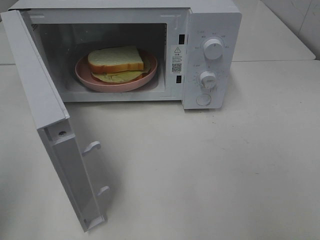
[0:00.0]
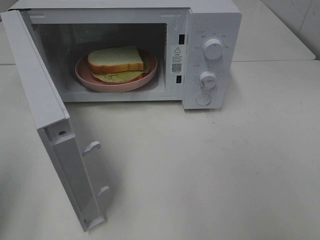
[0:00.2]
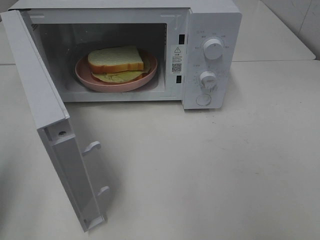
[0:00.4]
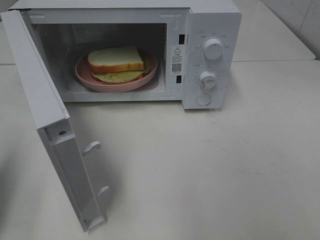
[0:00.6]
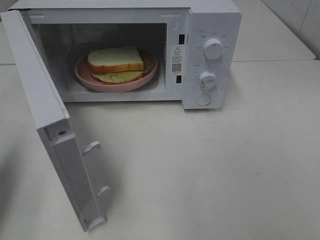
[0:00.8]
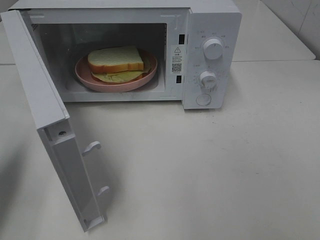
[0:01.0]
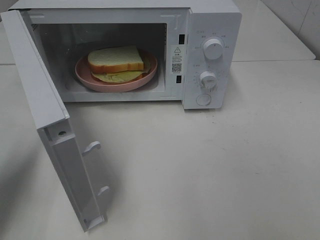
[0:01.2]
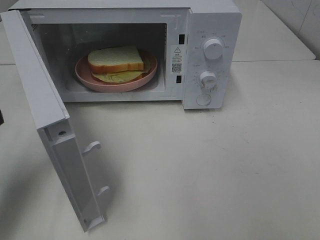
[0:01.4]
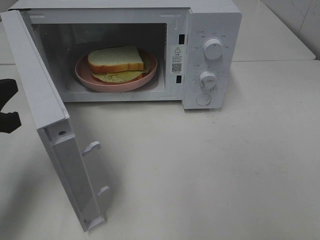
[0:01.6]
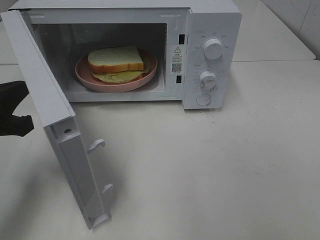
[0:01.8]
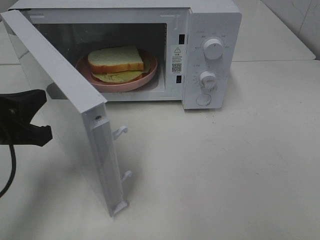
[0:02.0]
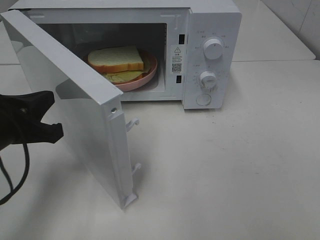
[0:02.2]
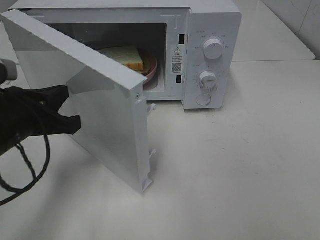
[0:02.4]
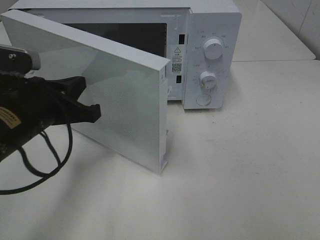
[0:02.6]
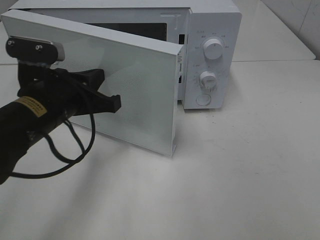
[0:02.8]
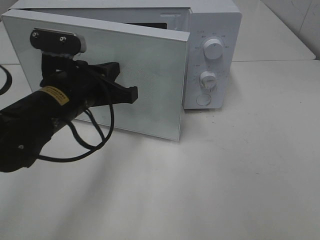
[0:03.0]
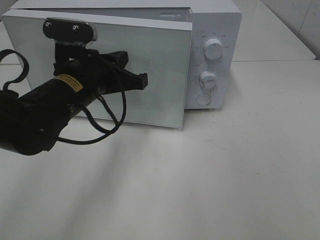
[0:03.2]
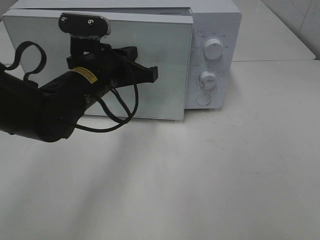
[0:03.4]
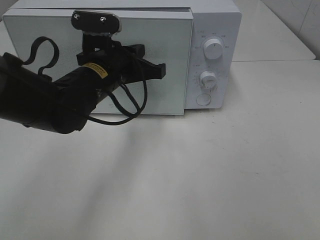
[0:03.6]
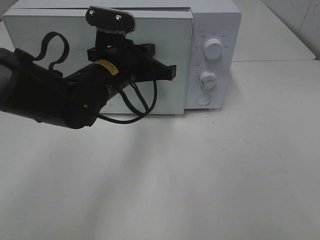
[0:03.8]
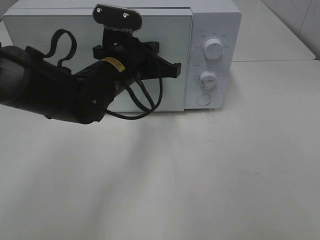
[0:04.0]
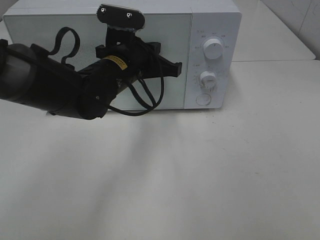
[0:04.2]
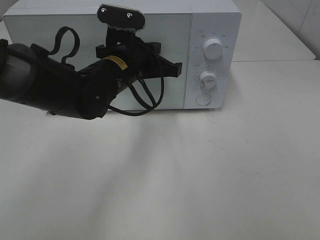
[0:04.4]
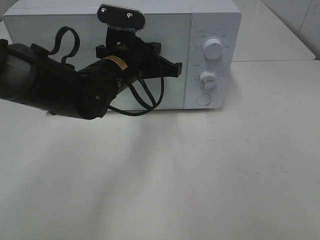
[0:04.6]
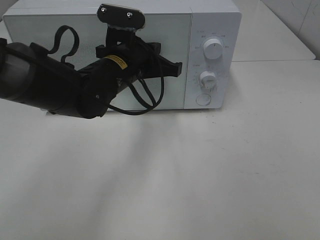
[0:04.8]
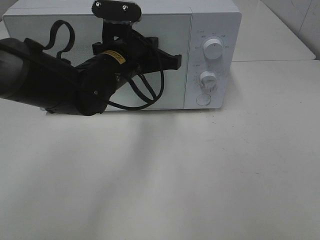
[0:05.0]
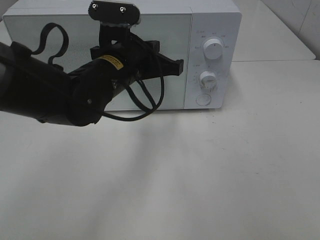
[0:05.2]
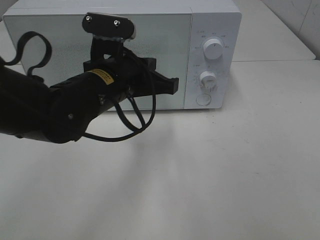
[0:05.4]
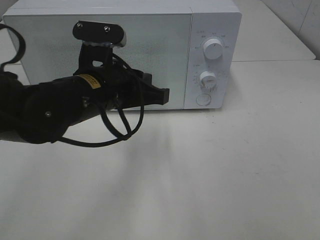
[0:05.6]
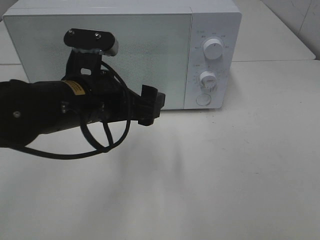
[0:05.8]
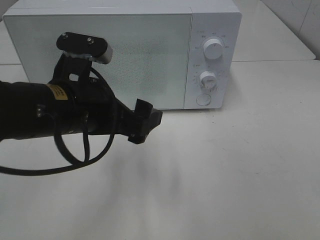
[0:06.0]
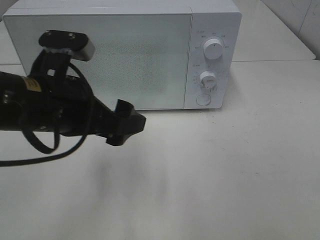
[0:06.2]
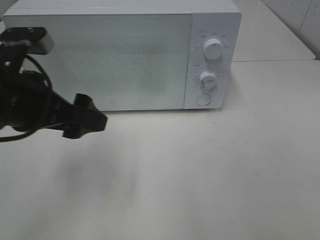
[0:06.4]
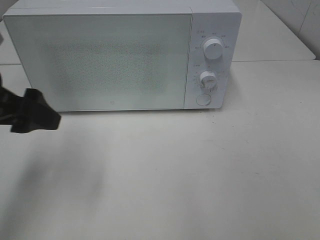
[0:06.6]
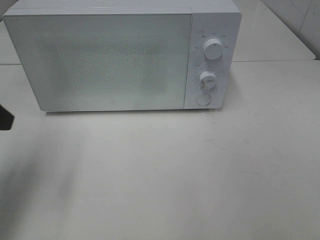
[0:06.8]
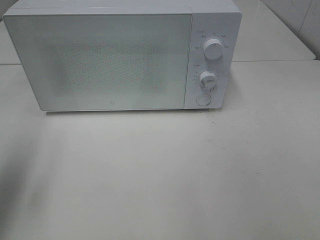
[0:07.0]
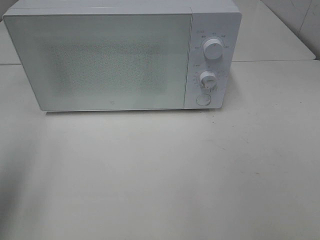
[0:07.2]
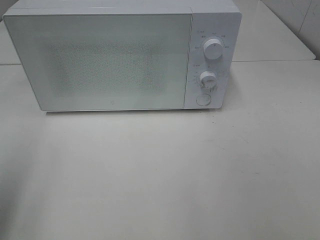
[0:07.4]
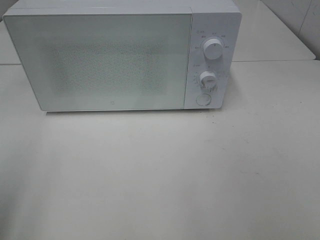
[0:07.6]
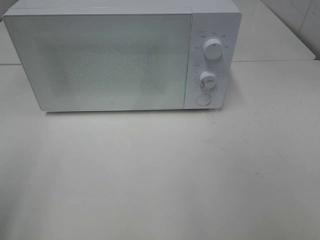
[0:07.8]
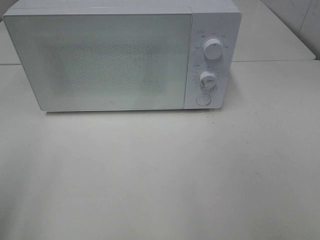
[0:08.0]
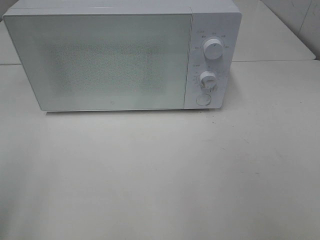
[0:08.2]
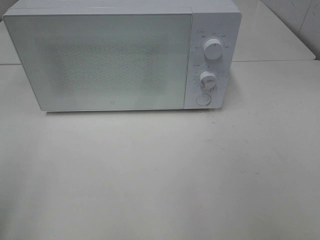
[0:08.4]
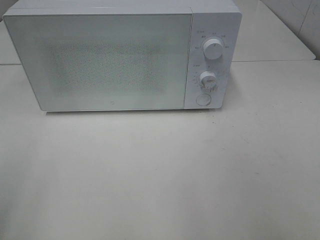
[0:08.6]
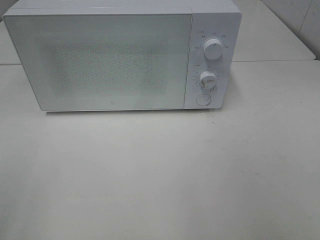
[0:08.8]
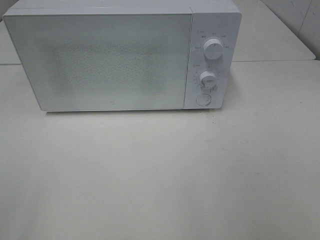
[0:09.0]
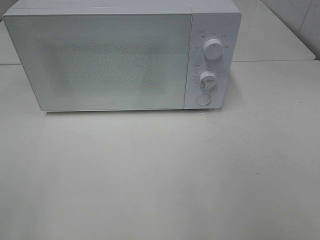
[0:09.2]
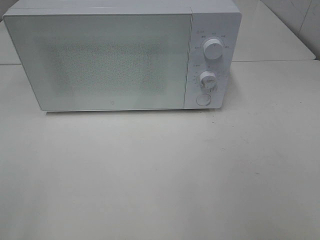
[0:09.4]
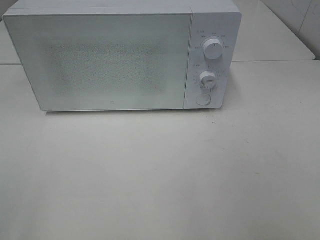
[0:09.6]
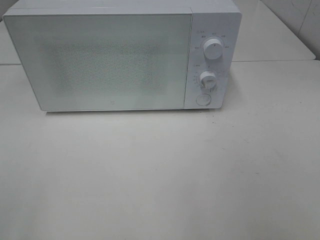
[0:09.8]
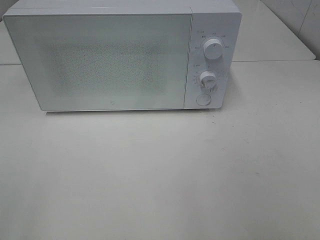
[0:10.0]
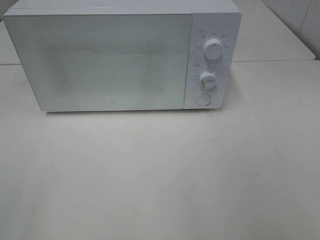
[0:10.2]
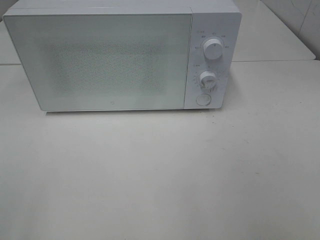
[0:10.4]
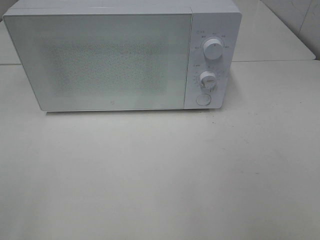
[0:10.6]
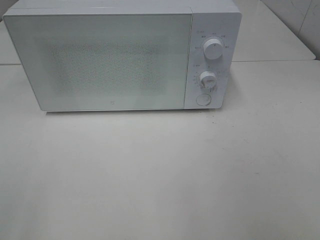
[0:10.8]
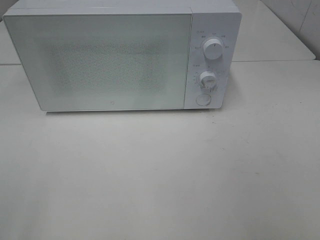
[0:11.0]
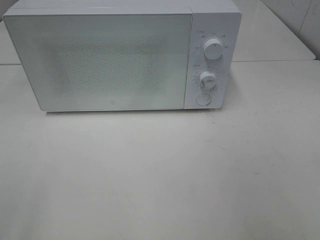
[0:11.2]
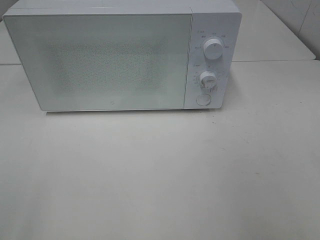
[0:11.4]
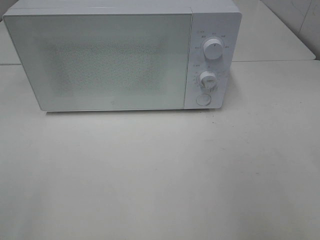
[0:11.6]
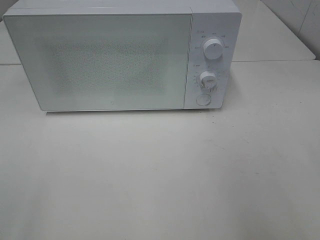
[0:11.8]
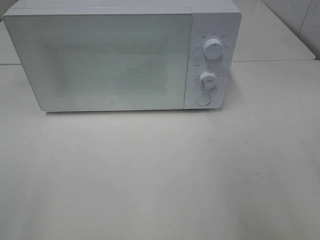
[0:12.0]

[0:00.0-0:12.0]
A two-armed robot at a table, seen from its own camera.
Task of the whole recording: Heat Sandwich.
Step, 0:00.0 to 0:05.6: Left hand: close the microwave door.
0:00.0 to 0:01.6: The left gripper travels forward, downward and to the right by about 20 cm.
0:01.6 to 0:03.0: The left gripper is displaced to the right and forward by approximately 15 cm.
0:03.0 to 0:04.4: The left gripper moves forward and to the right, some 10 cm.
0:04.4 to 0:06.0: The left gripper goes some 15 cm backward and to the left, and opens up.
0:06.0 to 0:07.6: The left gripper travels to the left and backward by some 25 cm.
0:09.0 to 0:10.4: The two grippers keep their place.

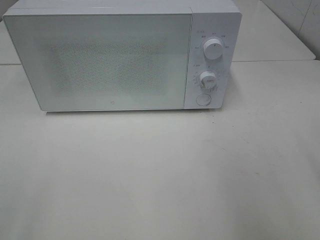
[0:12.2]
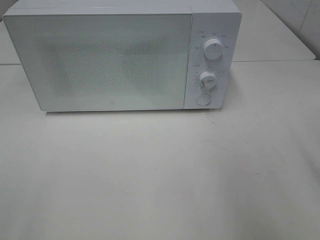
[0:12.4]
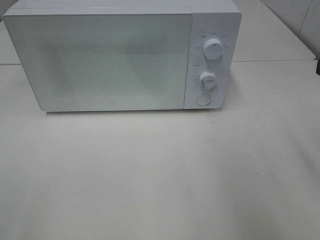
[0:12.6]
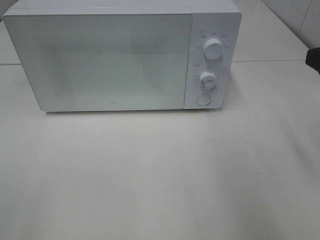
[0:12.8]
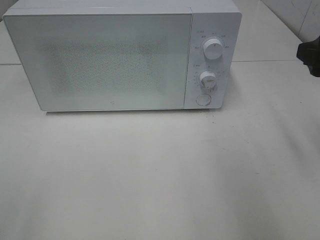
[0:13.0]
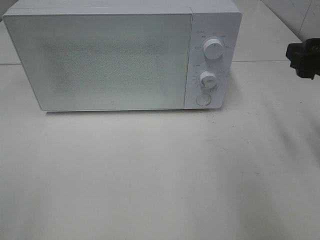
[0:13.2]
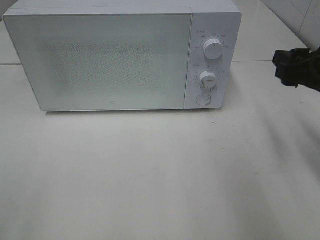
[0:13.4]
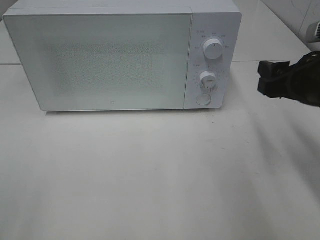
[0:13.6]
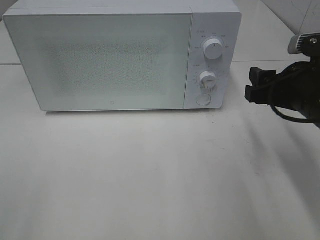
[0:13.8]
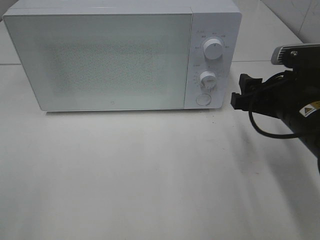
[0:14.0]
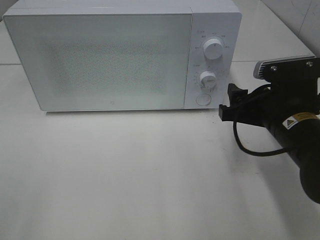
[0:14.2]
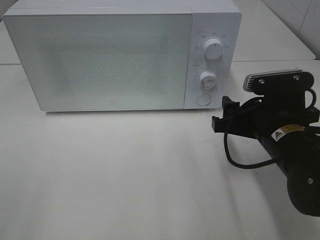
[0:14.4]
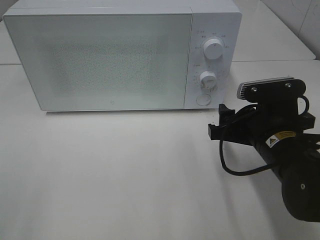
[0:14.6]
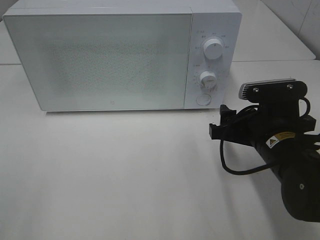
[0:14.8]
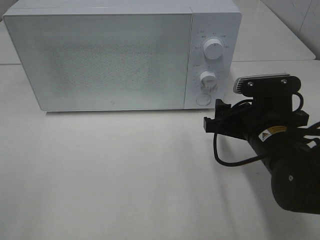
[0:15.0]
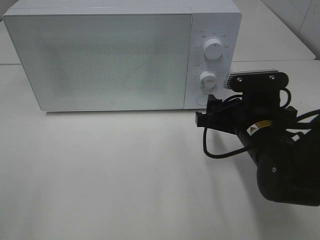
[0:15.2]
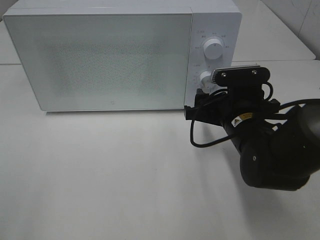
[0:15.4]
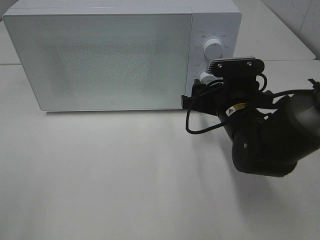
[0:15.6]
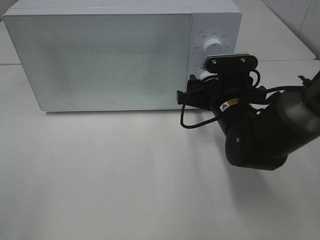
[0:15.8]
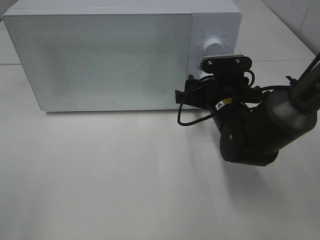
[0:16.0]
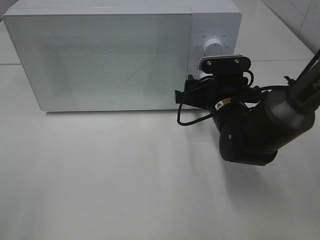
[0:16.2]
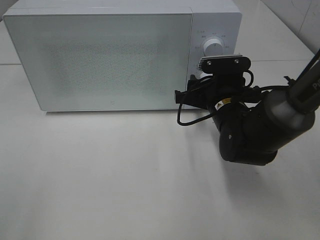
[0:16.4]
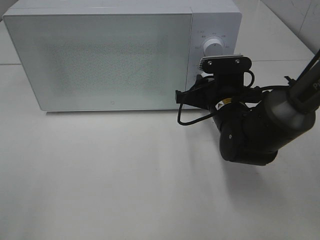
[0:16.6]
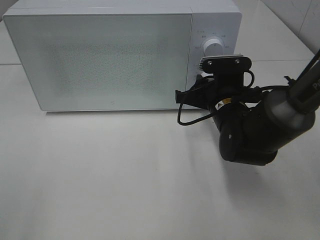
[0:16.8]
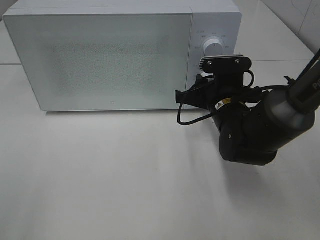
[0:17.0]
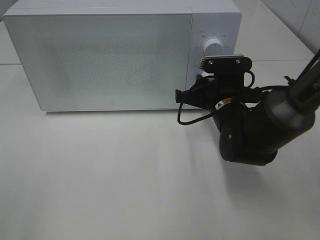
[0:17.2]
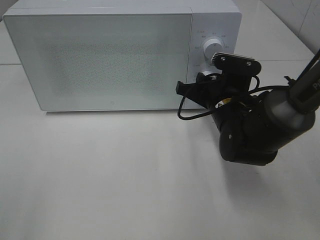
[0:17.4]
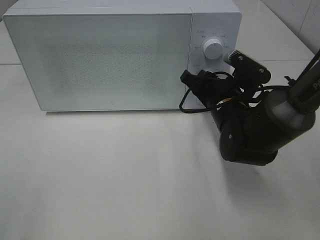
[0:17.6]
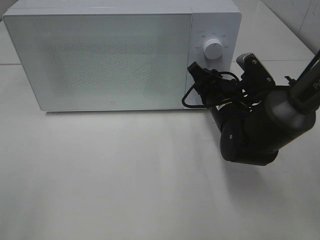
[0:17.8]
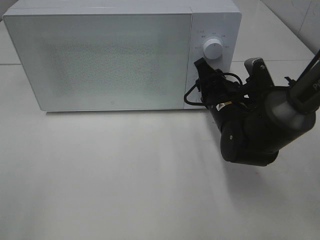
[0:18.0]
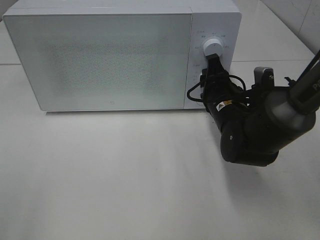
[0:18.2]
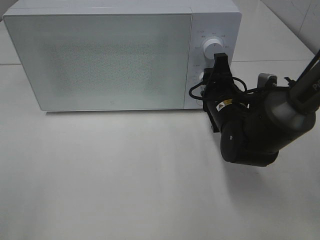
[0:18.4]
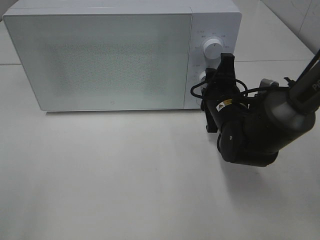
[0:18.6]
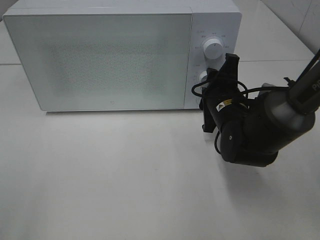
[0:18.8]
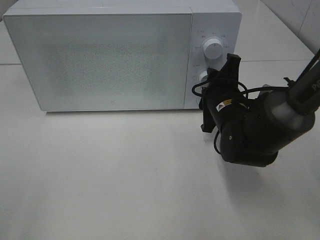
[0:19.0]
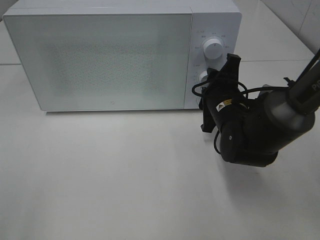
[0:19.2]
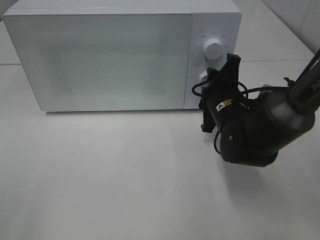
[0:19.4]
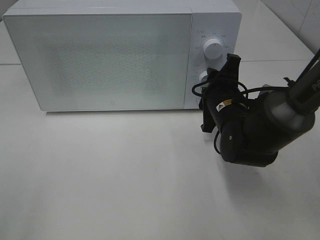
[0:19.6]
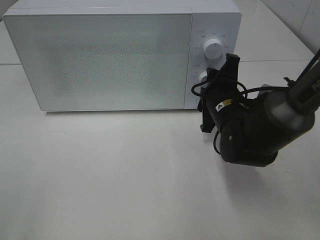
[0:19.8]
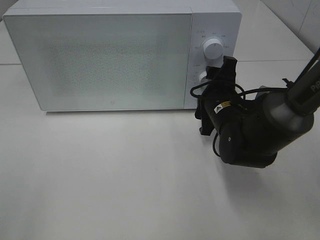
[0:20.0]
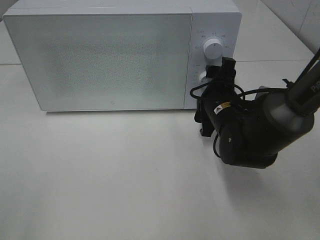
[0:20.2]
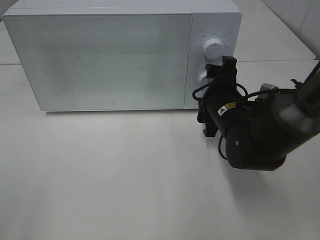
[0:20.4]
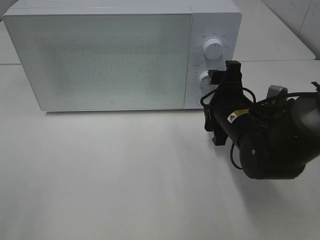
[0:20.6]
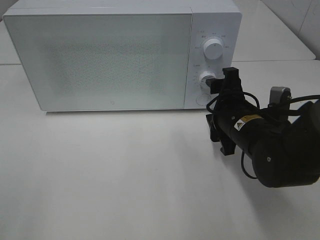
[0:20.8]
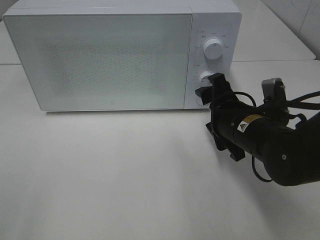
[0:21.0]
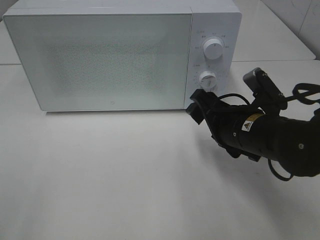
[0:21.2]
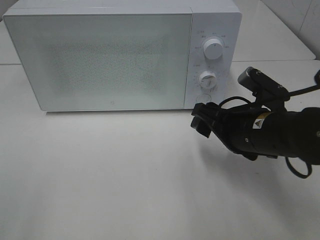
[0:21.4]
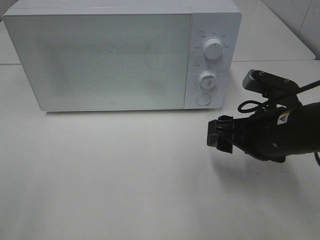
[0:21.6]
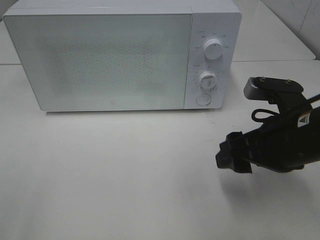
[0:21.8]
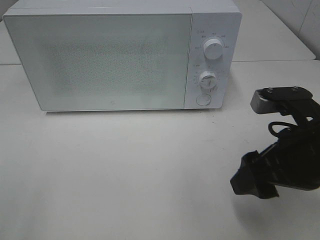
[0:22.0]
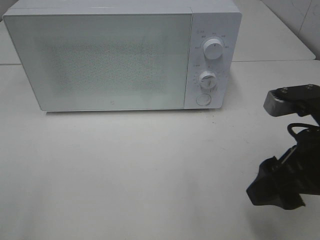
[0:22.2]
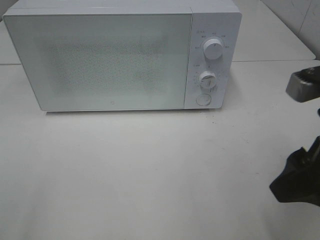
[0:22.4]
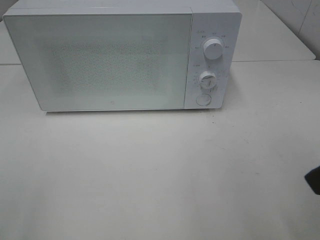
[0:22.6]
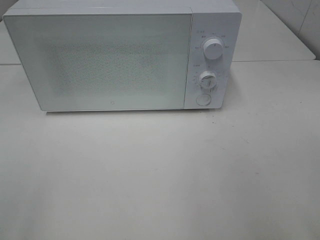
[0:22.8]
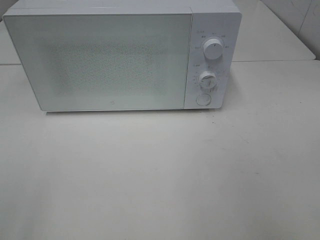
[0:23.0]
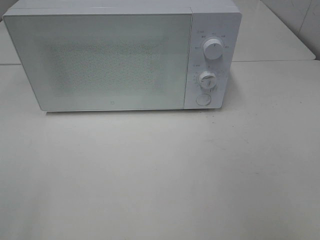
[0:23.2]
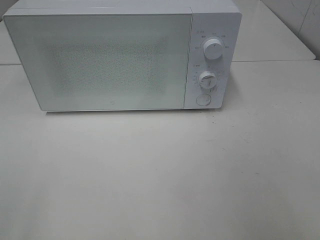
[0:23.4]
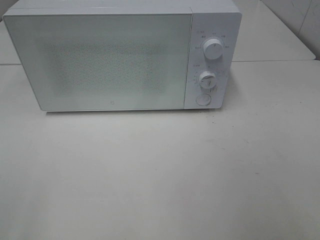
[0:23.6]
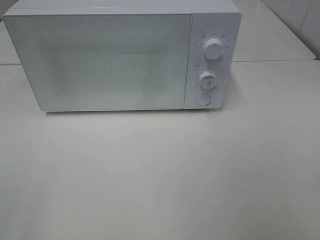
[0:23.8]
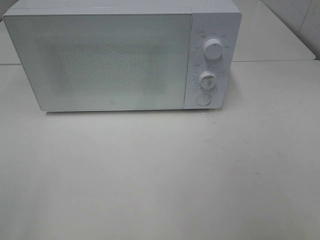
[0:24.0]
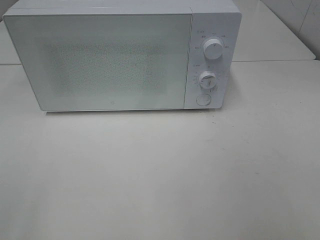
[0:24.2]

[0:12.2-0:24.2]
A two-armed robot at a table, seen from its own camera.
Task of the whole recording: Heat Sandwich.
Step, 0:12.2 to 0:20.2: Right hand: twist timer button.
0:12.2 to 0:13.8: The right gripper goes roughly 15 cm forward, downward and to the left.
0:13.8 to 0:15.2: The right gripper goes about 10 cm to the left and downward.
0:15.2 to 0:16.6: The right gripper travels forward by some 5 cm, and closes.
0:19.8 to 0:21.2: The right gripper is displaced backward by roughly 5 cm.
0:21.2 to 0:22.6: The right gripper heads upward, backward and to the right, covering some 20 cm.
0:22.6 to 0:24.2: The right gripper goes about 15 cm backward and to the right.
